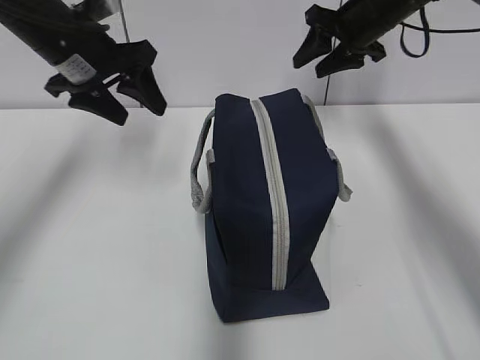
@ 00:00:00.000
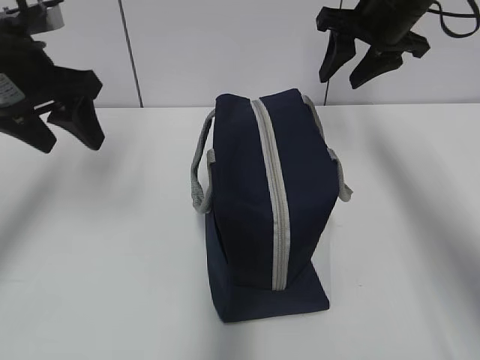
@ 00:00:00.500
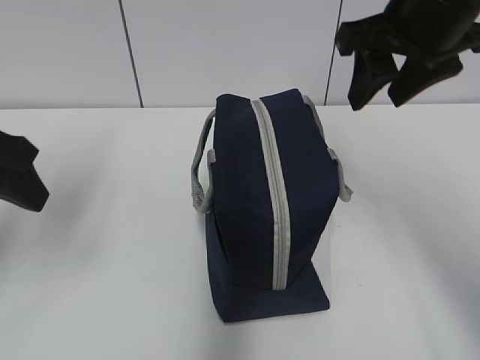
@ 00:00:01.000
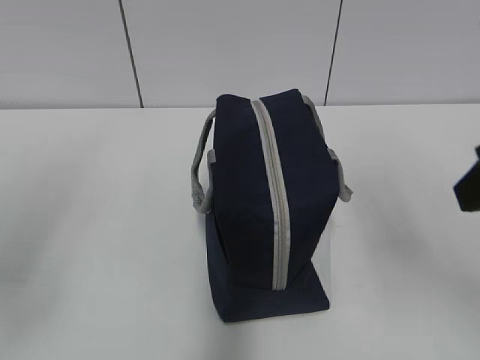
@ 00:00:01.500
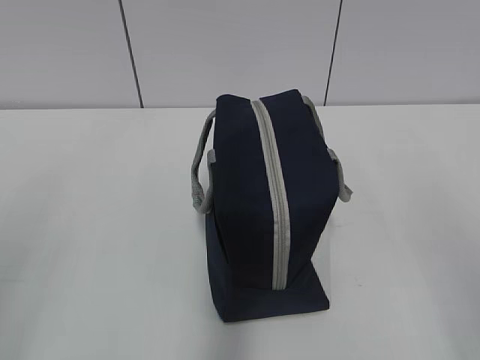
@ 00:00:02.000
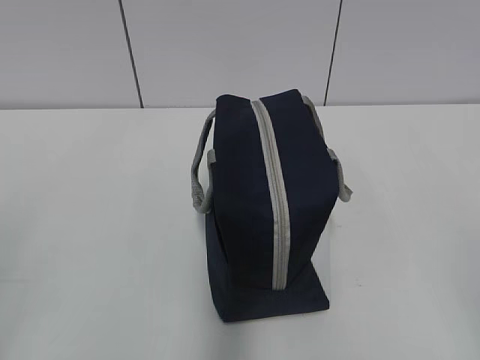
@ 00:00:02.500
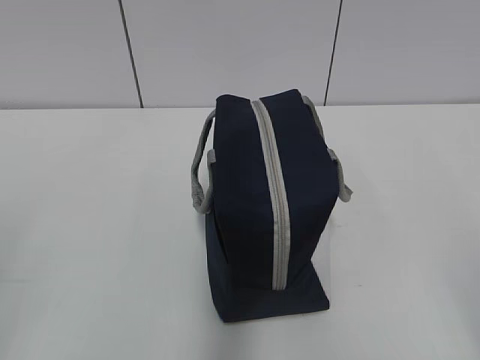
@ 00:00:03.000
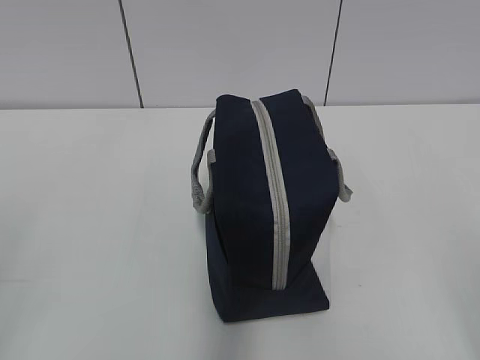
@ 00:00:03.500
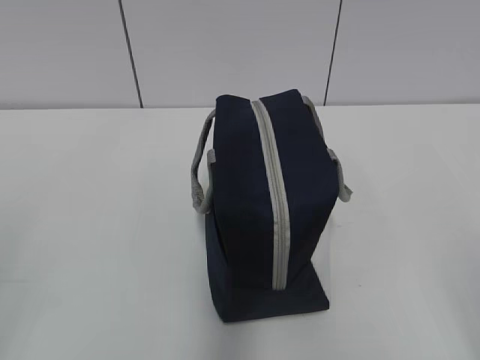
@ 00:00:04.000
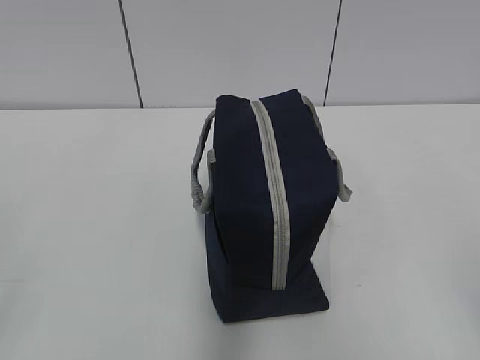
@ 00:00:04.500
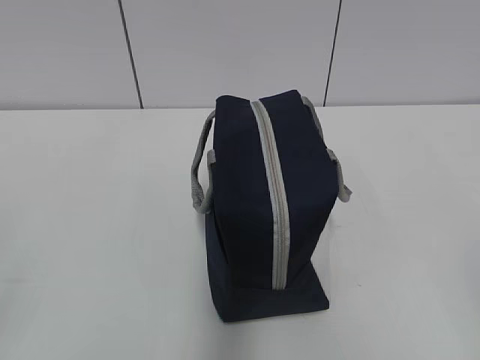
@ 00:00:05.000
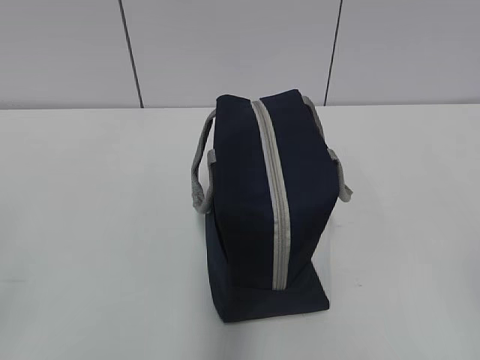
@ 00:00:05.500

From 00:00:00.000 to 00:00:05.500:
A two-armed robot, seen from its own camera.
From 00:00:00.000 to 00:00:02.000: Both grippers move backward, approximately 40 cm.

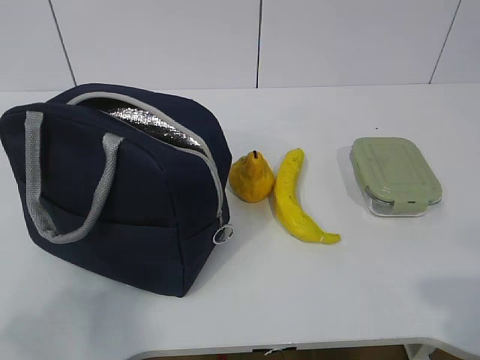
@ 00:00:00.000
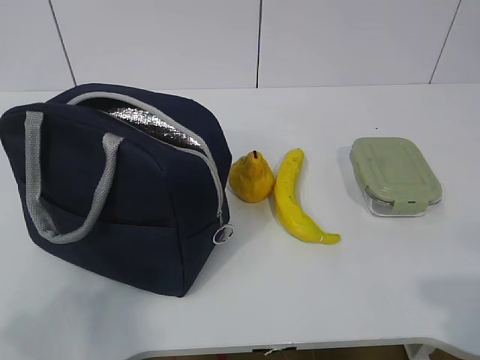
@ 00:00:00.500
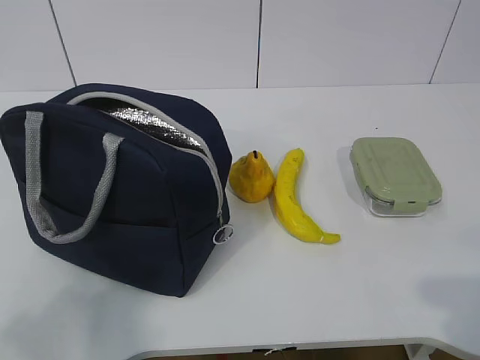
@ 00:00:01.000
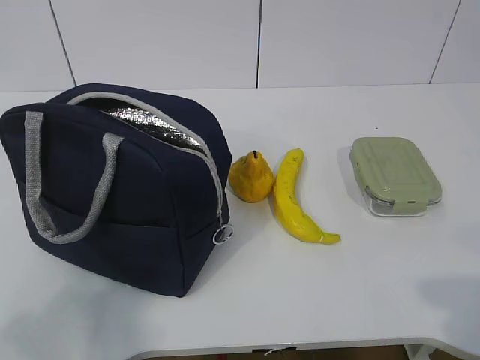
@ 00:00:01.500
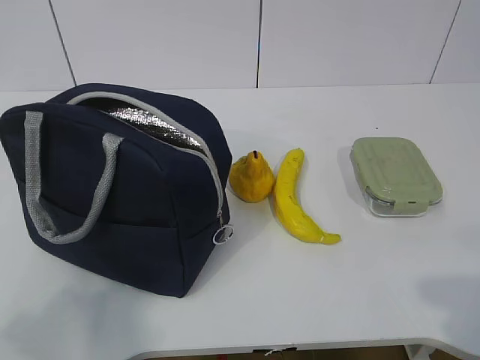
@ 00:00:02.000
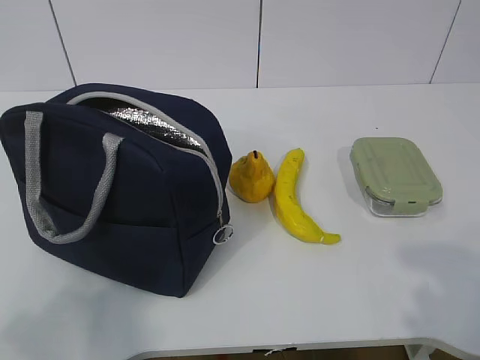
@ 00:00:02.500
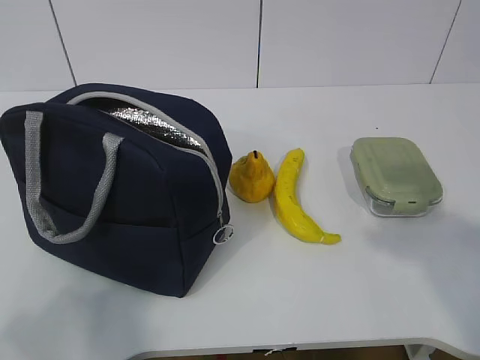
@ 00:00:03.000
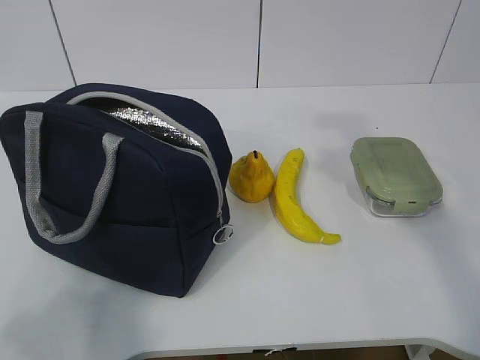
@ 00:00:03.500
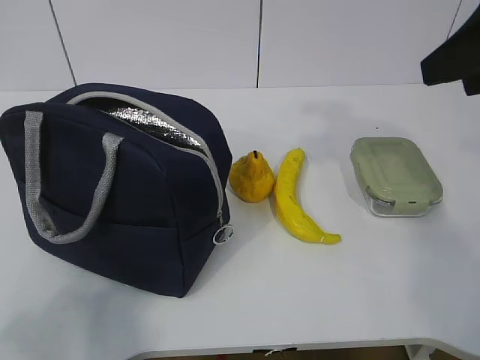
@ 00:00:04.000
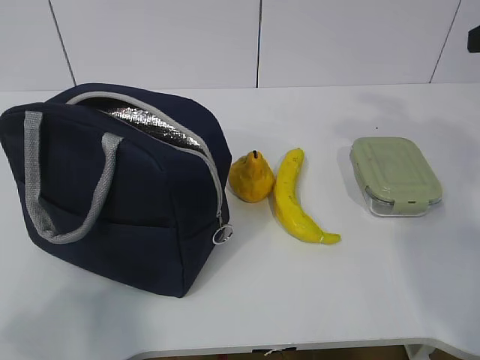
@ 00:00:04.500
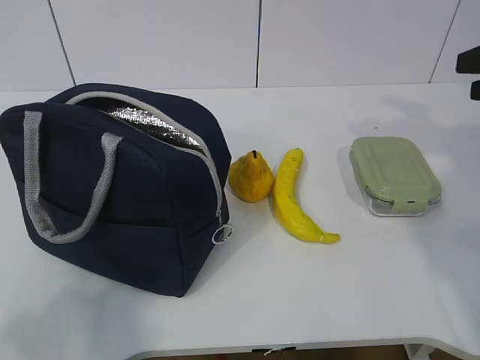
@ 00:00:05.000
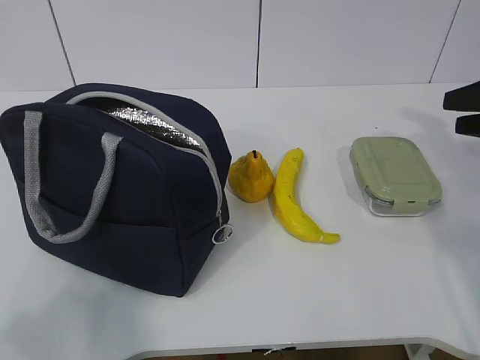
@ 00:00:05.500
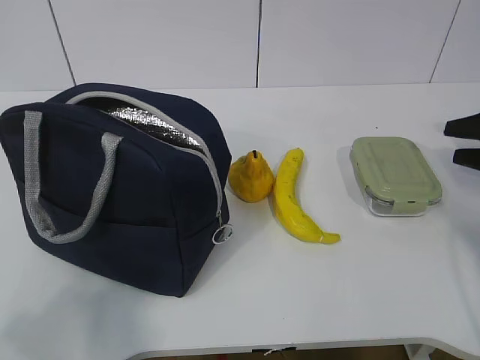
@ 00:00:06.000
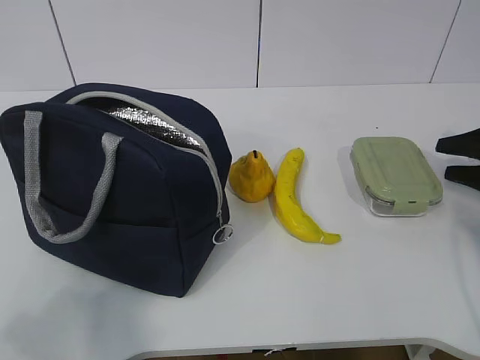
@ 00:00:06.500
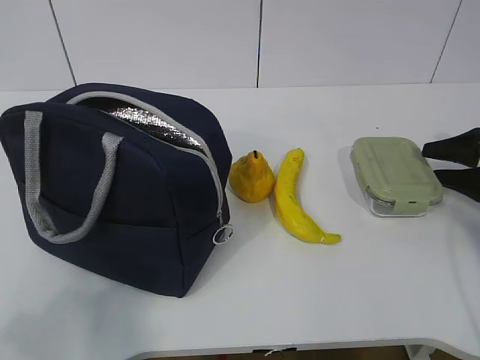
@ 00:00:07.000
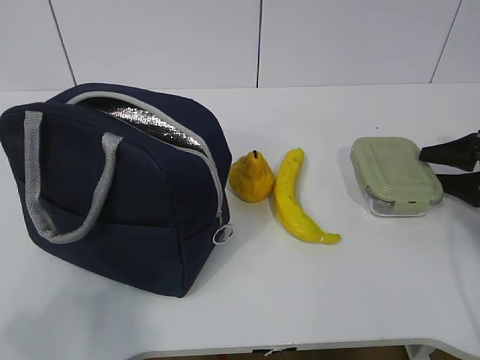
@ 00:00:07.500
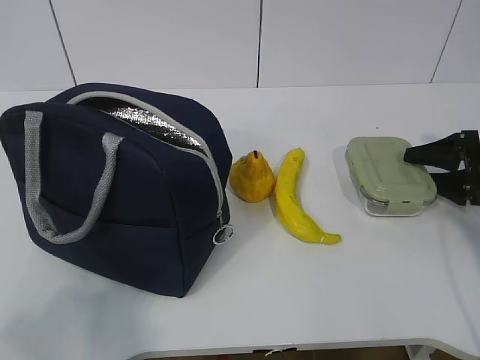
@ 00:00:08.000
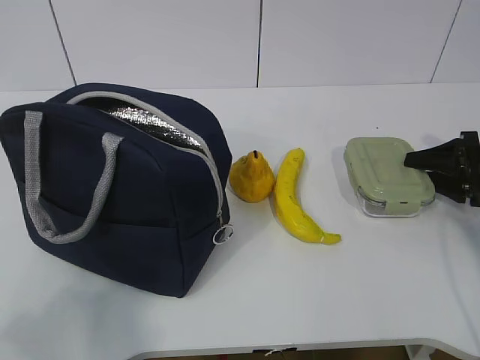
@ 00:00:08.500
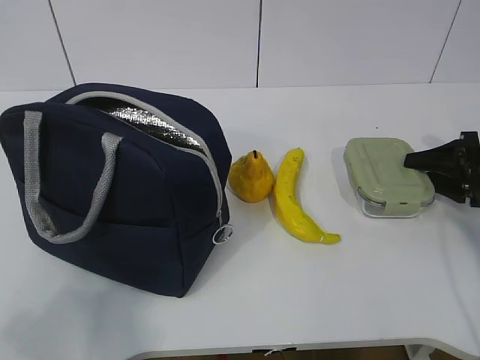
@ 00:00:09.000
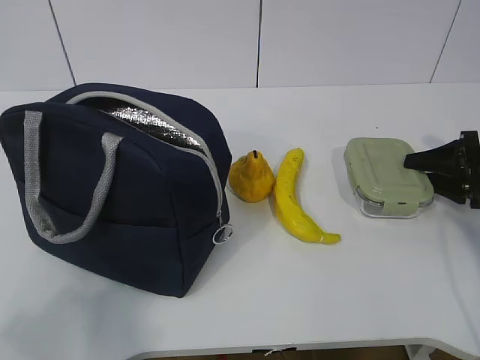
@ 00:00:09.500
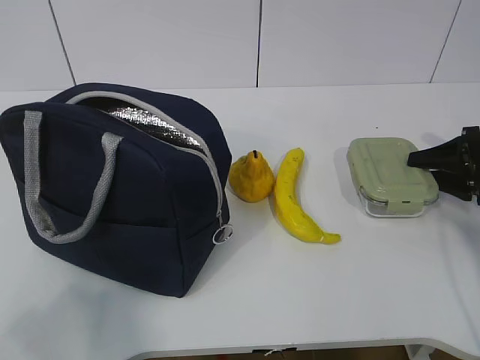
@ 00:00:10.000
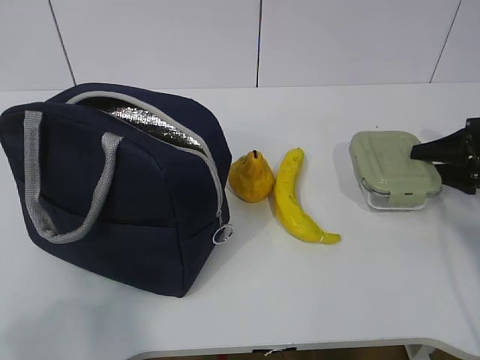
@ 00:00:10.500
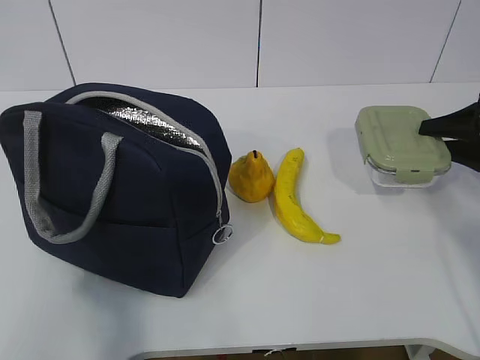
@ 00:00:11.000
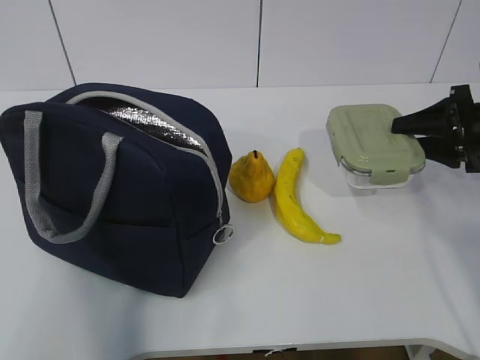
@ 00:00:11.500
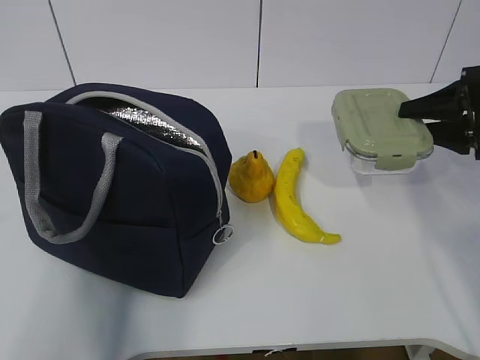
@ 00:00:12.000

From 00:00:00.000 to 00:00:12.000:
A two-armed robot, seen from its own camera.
Step, from 00:00:00.000 to 00:00:07.500: Grab the lunch box with your right hand.
From 00:00:02.000 to 00:00:04.000: The right gripper heads forward, covering about 25 cm.
From 00:00:04.000 to 00:00:06.000: The right gripper is displaced downward, to the right and forward by some 30 cm.
From 00:00:06.000 to 00:00:08.000: The right gripper travels downward by roughly 5 cm.
From 00:00:08.000 to 00:00:10.000: Both grippers stay put.
From 00:00:10.000 to 00:00:12.000: The right gripper is displaced upward by some 10 cm. The left gripper travels forward and upward by roughly 10 cm.

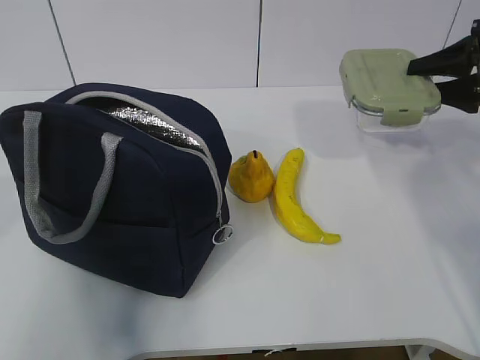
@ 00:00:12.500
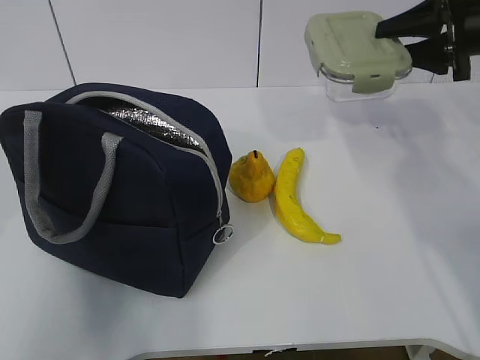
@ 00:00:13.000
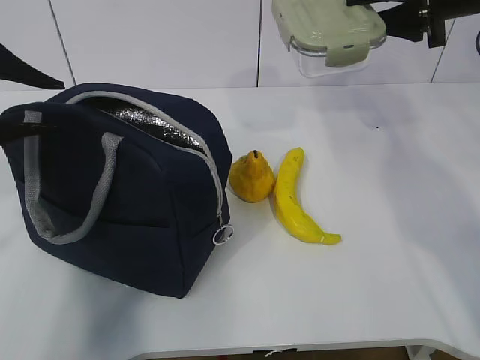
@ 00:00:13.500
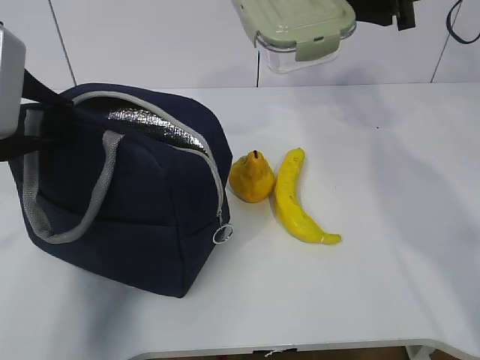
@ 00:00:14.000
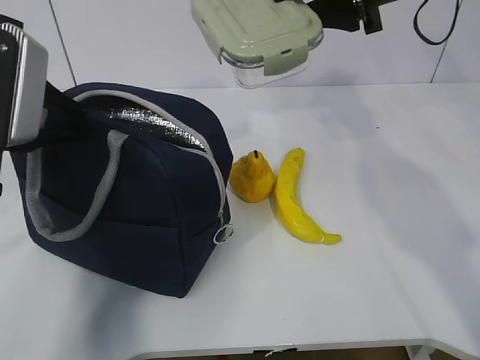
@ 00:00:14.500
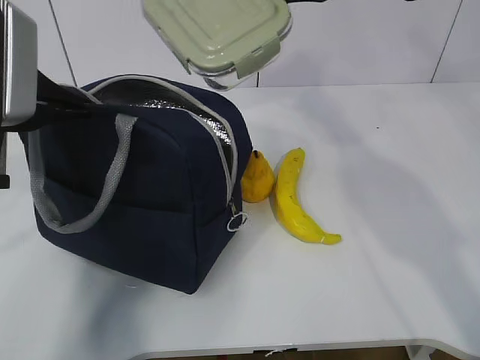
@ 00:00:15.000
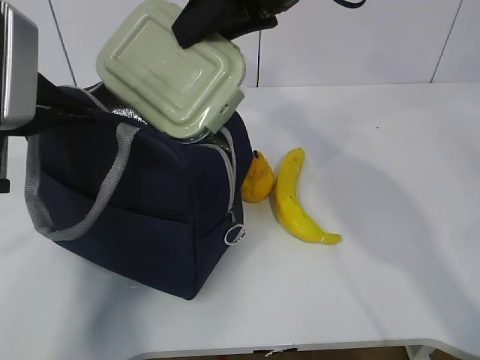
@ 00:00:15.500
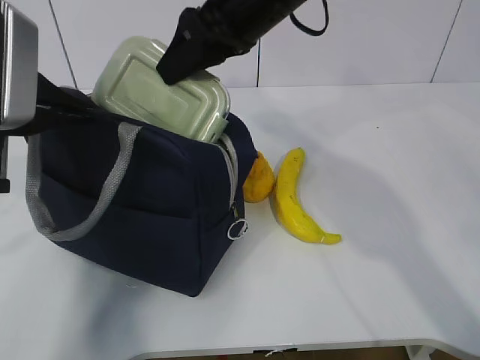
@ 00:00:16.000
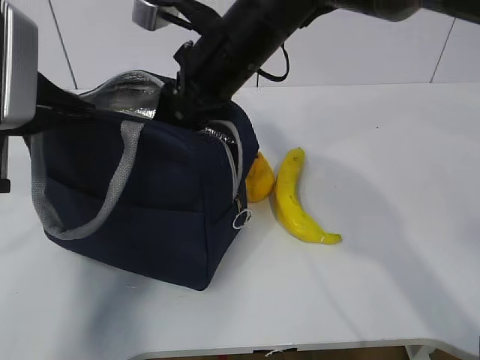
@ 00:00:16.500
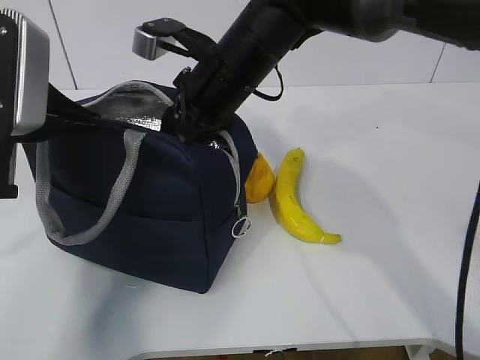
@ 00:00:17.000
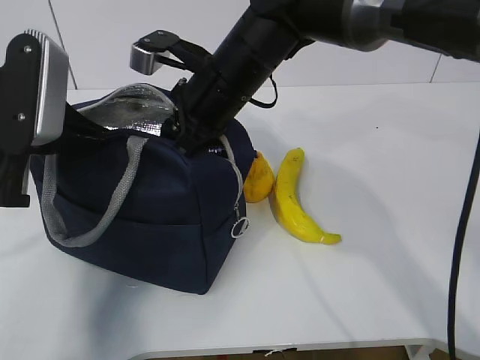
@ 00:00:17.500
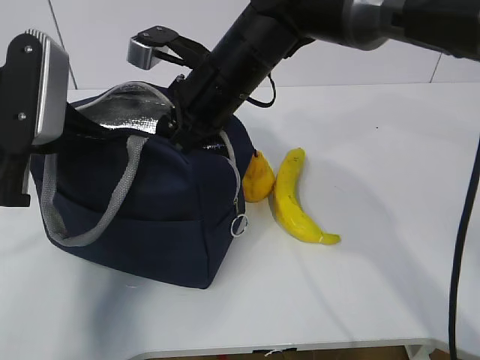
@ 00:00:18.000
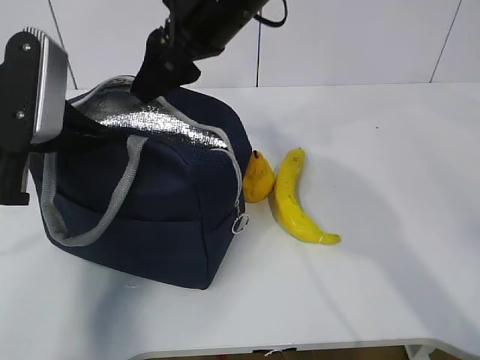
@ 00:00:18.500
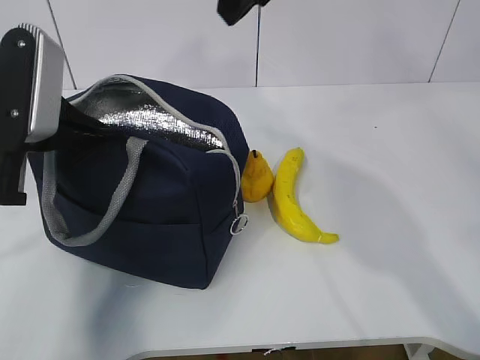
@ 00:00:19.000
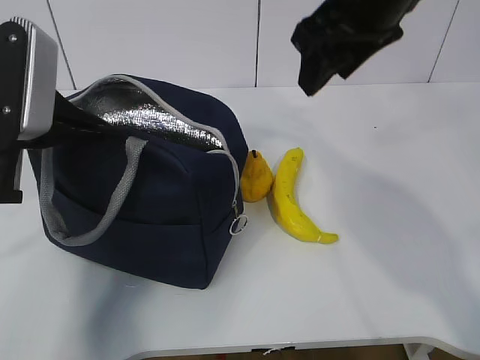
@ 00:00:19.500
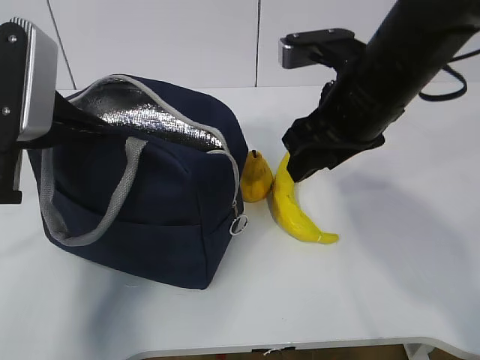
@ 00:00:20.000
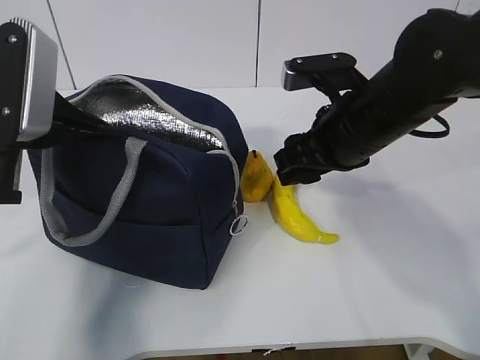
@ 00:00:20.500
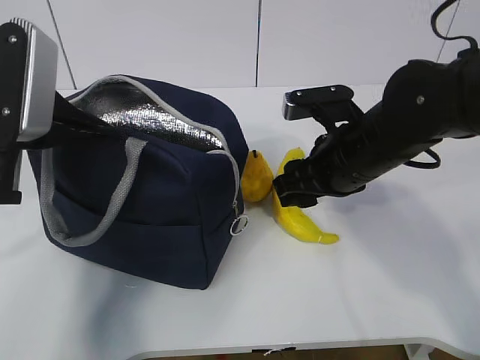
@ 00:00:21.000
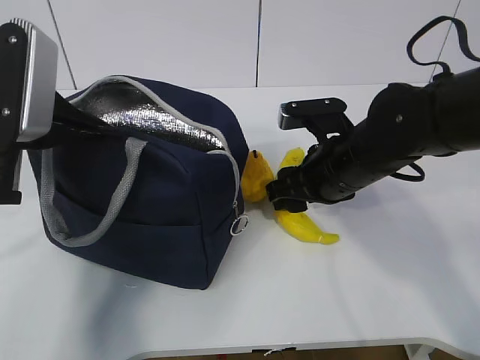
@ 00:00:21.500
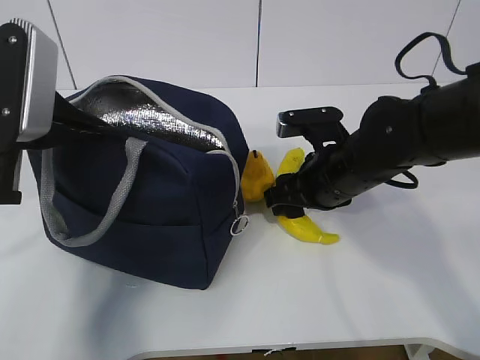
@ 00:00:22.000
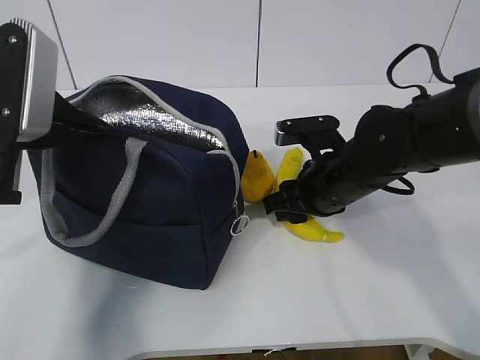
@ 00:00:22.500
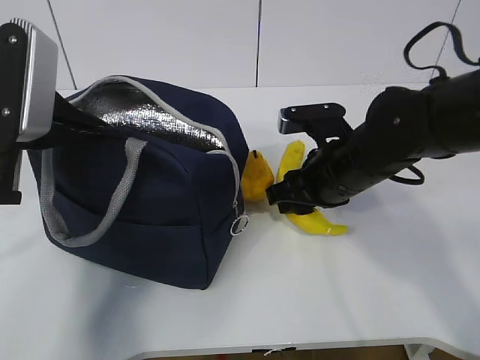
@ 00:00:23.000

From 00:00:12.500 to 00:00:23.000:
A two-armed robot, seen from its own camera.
Step, from 00:00:13.000 to 00:00:15.000: Place it into the bag with your right hand.
Step, from 00:00:15.500 to 00:00:18.500: Grab the banana with your right hand.
From 00:00:12.500 to 00:00:14.500: The right gripper travels to the left and upward by about 20 cm. The left gripper moves forward and to the right, approximately 15 cm.
From 00:00:14.500 to 00:00:16.500: The right gripper heads to the left and downward, covering roughly 20 cm.
From 00:00:16.500 to 00:00:19.000: The right gripper is displaced upward and to the right by roughly 15 cm.
From 00:00:19.000 to 00:00:21.000: The right gripper heads downward, covering approximately 20 cm.
From 00:00:21.000 to 00:00:23.000: There are only small adjustments of the grippers.
